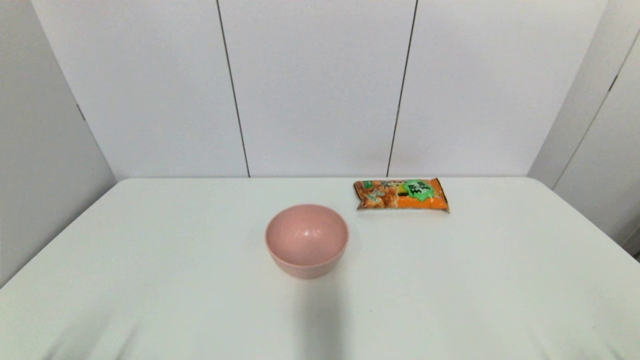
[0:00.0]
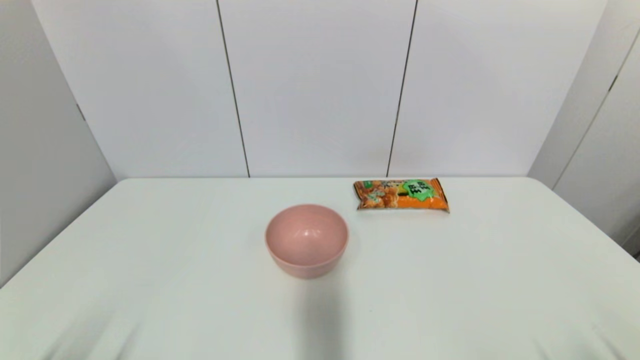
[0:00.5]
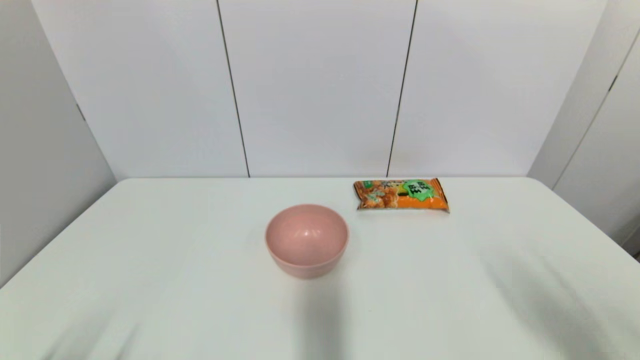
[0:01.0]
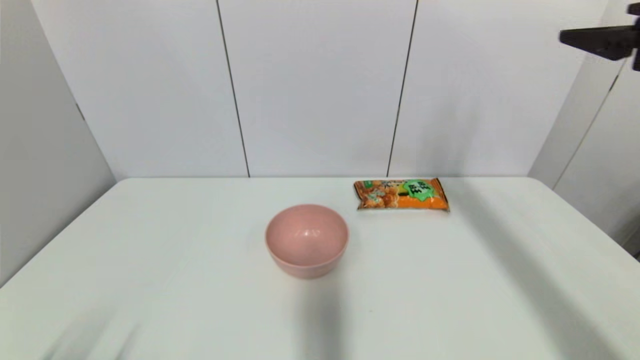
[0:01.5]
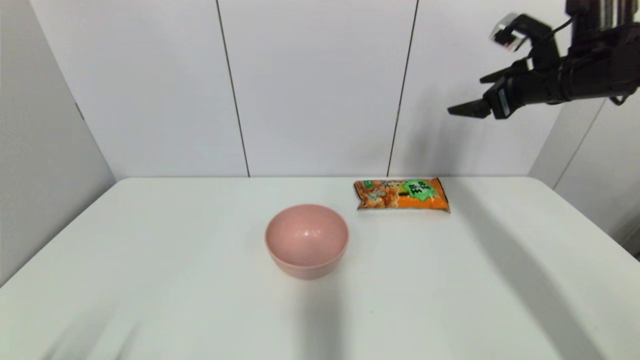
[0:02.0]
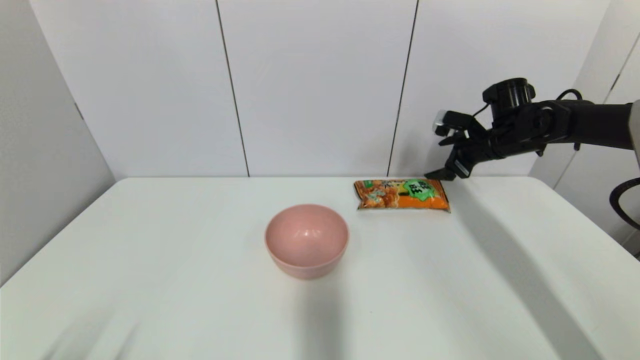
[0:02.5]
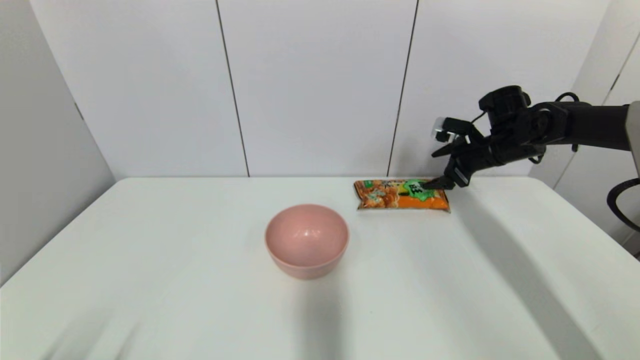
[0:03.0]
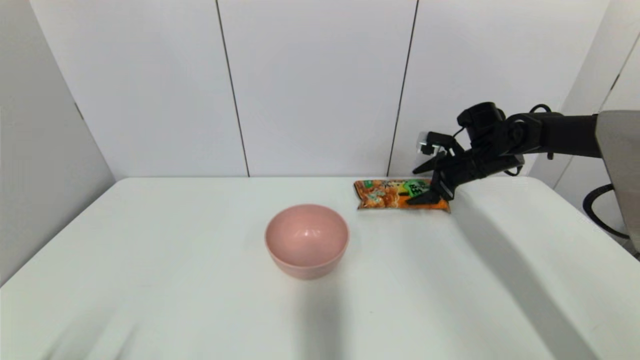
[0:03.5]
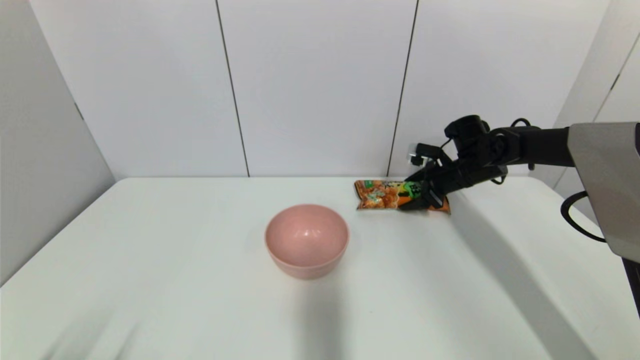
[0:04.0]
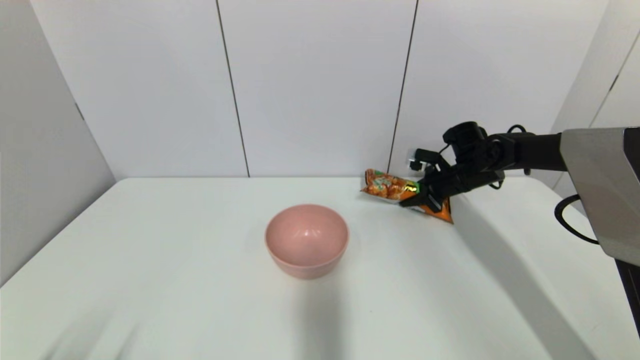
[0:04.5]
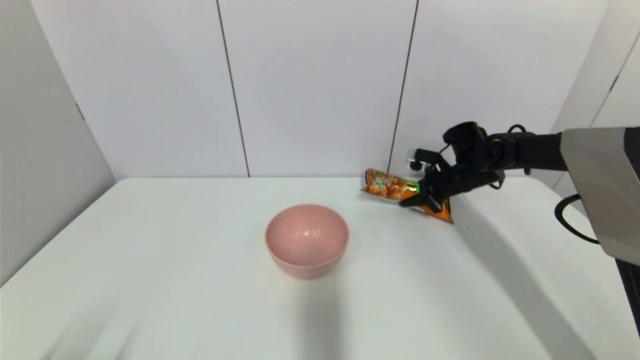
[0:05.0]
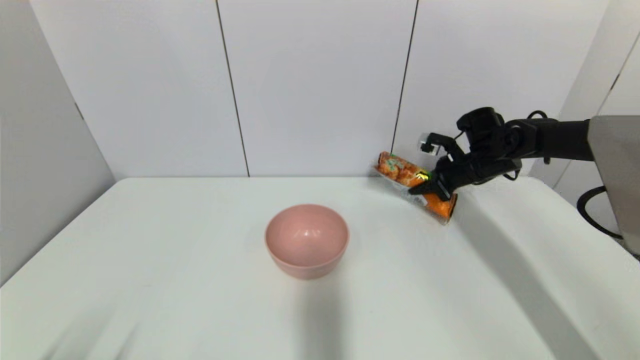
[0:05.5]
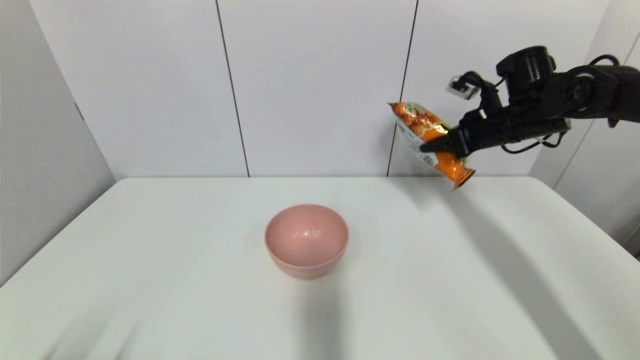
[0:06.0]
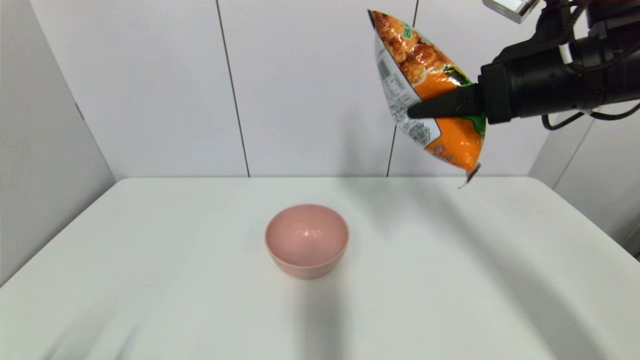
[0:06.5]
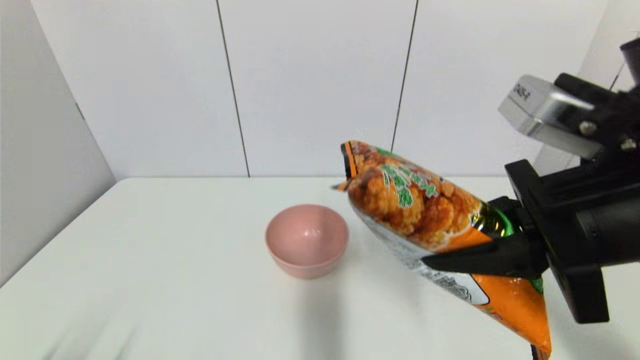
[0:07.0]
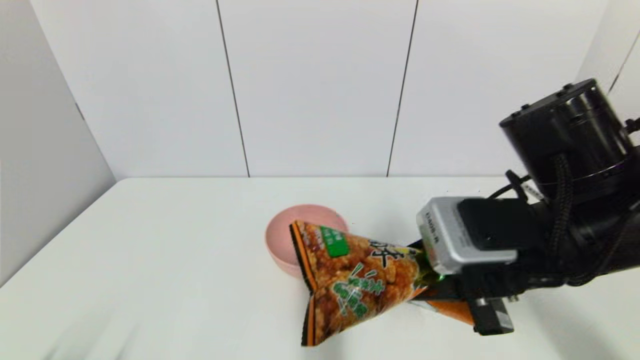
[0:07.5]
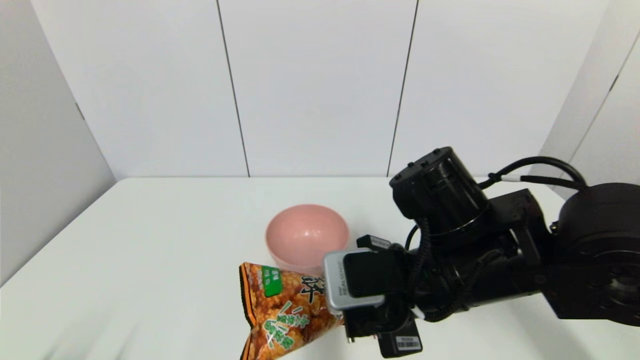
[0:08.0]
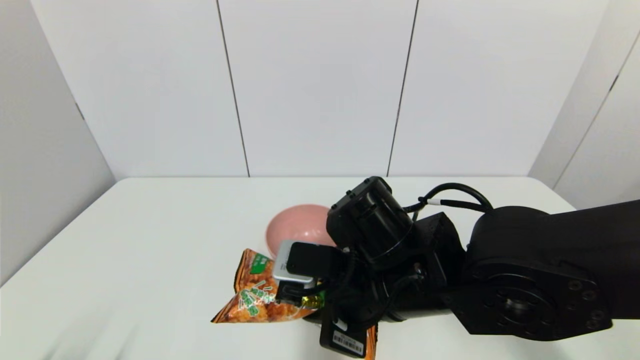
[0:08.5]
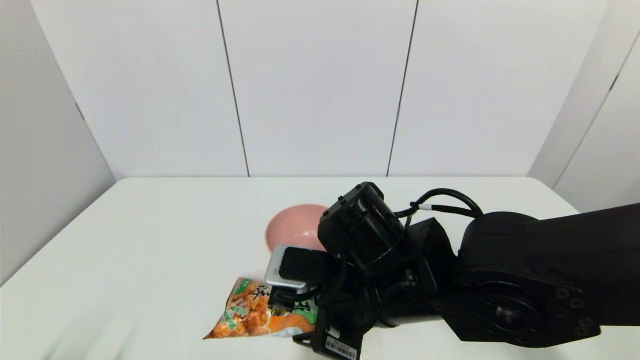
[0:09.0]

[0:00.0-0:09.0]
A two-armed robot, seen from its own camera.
Step, 0:01.5 to 0:04.5: Grasp the cookie with right gripper.
0:00.0 to 0:02.0: The right gripper shifts about 50 cm forward and upward.
0:02.0 to 0:04.5: The right gripper moves downward and forward, roughly 20 cm, and closes its fingers.
0:04.5 to 0:07.0: The right gripper moves backward and upward, some 35 cm.
0:07.0 to 0:09.0: The right gripper shifts roughly 20 cm to the left and downward, and opens its fingers.

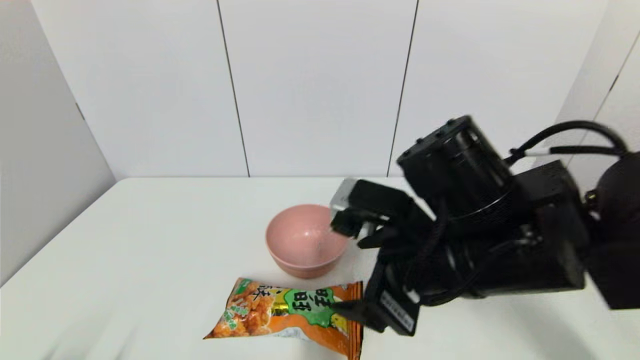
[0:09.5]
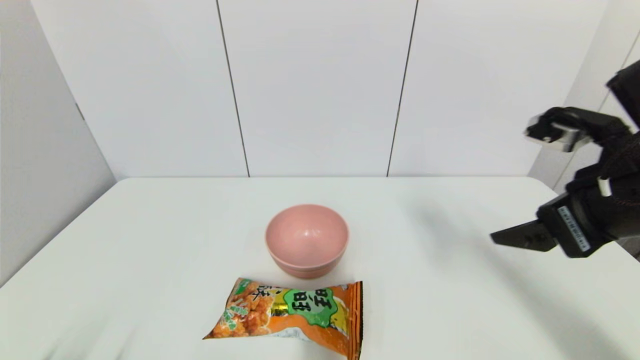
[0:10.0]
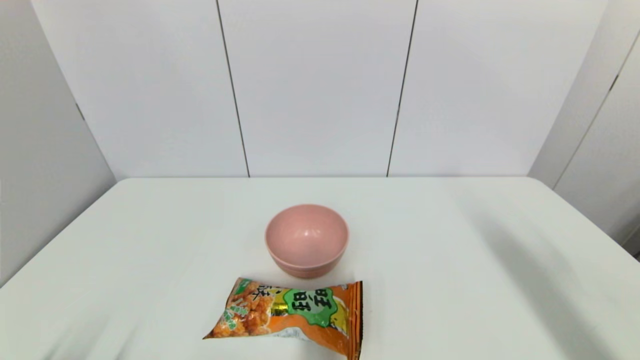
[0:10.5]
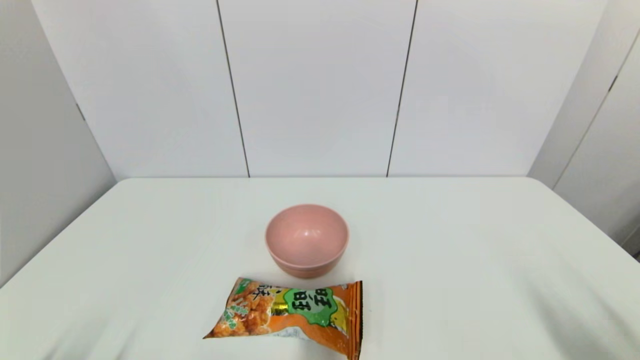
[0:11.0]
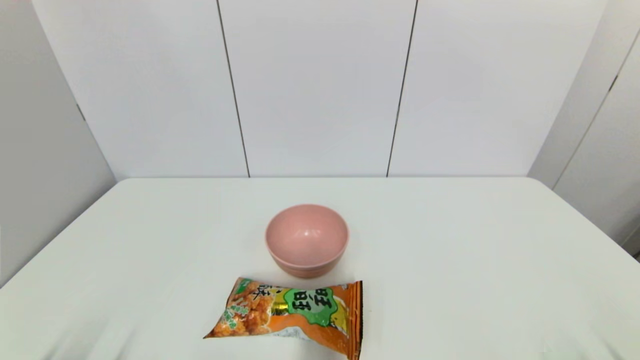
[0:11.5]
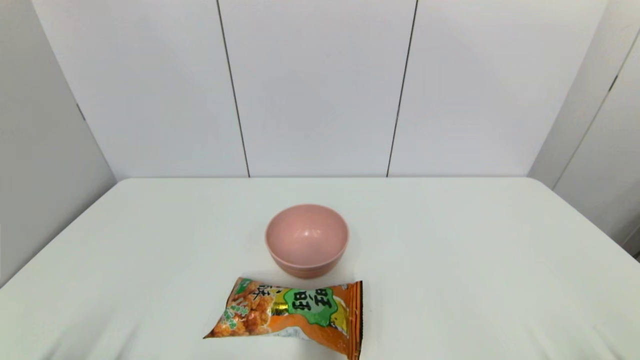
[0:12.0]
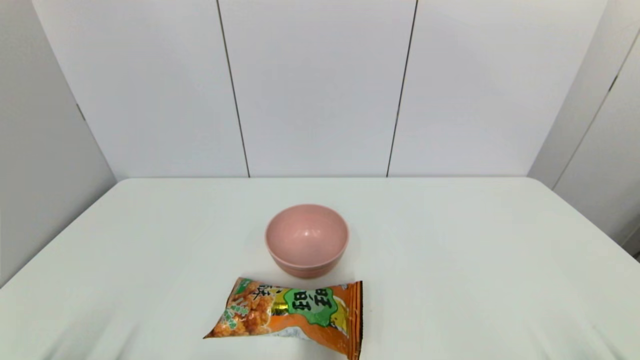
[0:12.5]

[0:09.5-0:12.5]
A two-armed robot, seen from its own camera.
0:09.5 to 0:11.0: The right gripper heads to the right and backward, covering about 30 cm.
0:11.0 to 0:12.5: The right gripper shifts some 10 cm downward.
